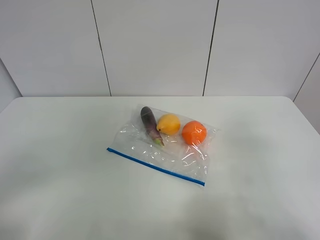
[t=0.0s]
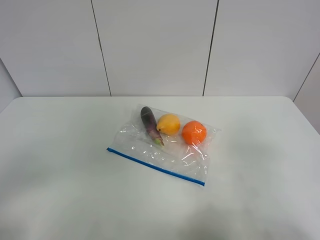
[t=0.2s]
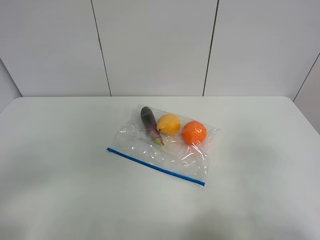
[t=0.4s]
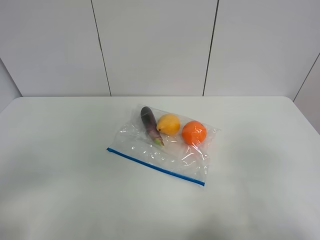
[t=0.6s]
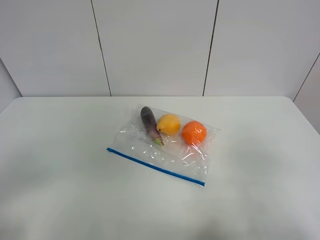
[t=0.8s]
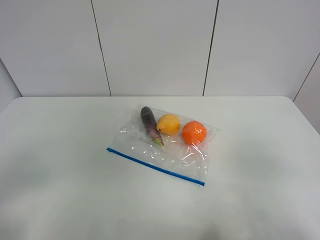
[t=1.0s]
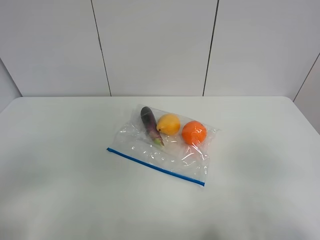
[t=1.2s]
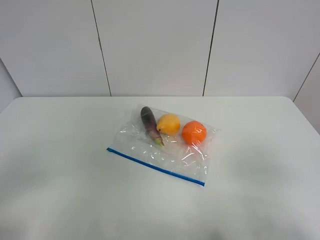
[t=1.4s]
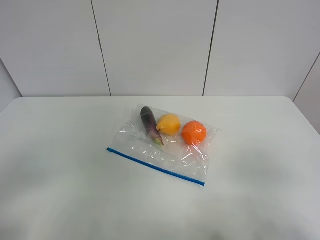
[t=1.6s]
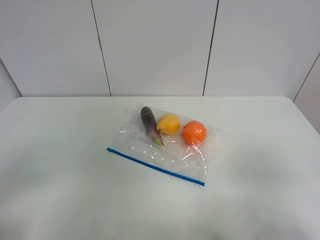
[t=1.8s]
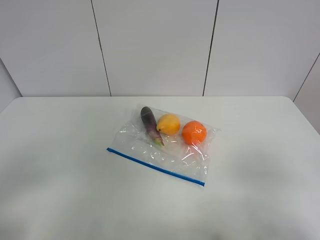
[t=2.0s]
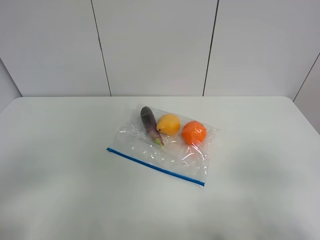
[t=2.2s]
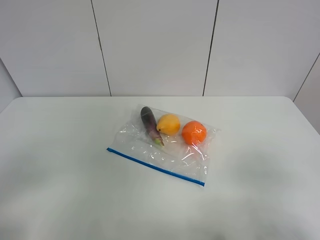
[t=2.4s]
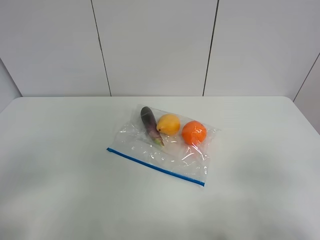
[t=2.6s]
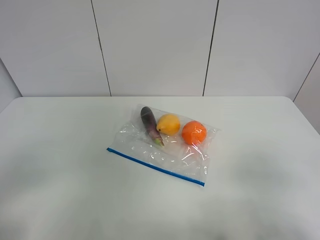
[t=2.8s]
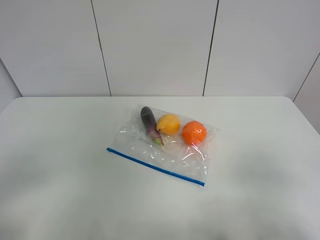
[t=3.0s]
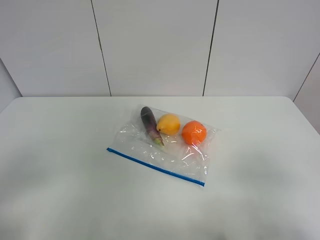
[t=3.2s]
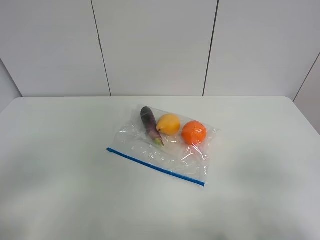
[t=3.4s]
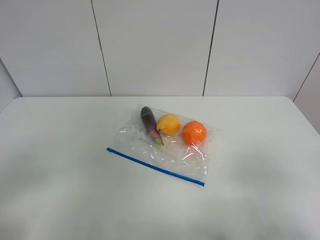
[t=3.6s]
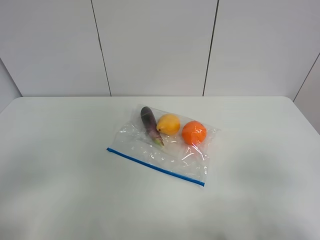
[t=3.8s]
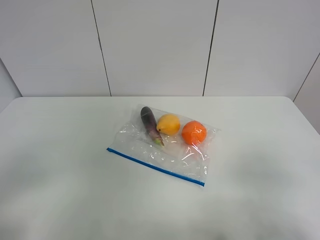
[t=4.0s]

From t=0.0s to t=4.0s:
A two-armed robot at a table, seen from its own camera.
From t=1.4s to t=4.0s: The two grippers keep their place.
